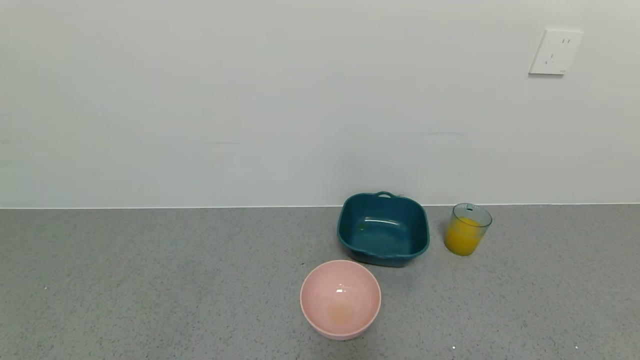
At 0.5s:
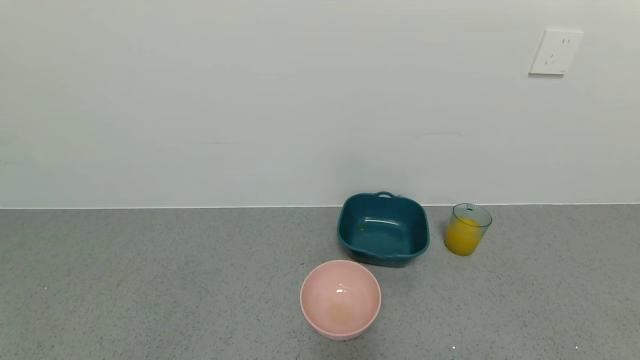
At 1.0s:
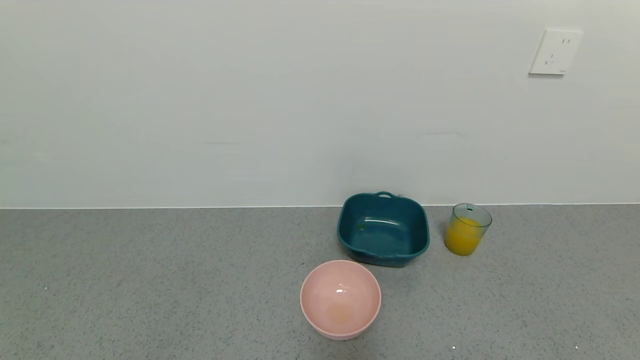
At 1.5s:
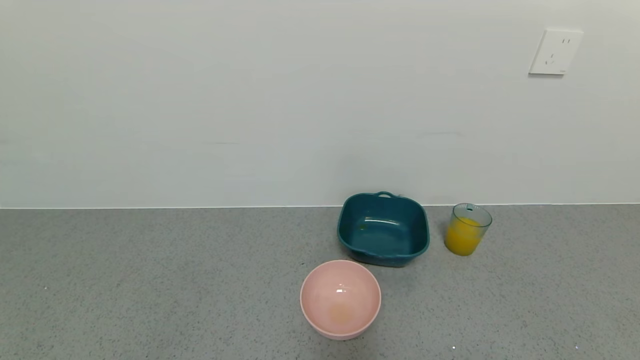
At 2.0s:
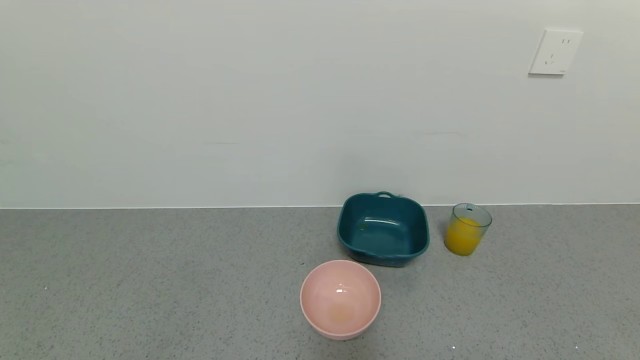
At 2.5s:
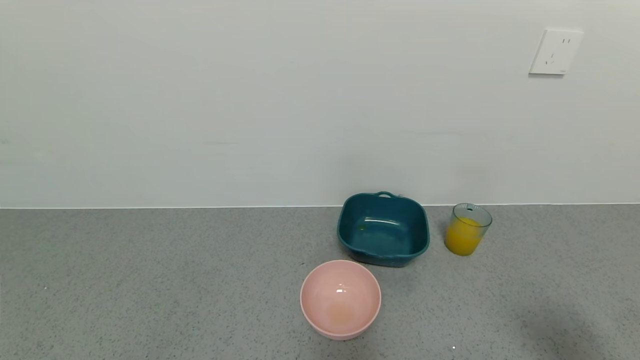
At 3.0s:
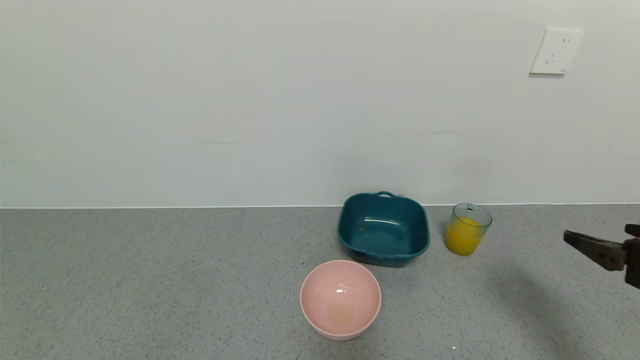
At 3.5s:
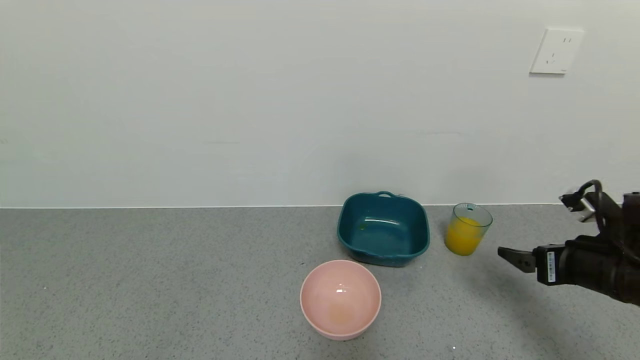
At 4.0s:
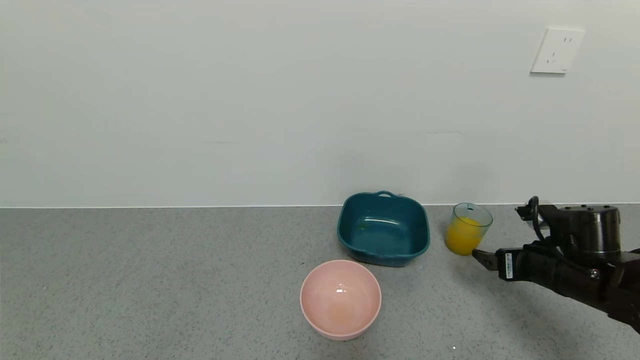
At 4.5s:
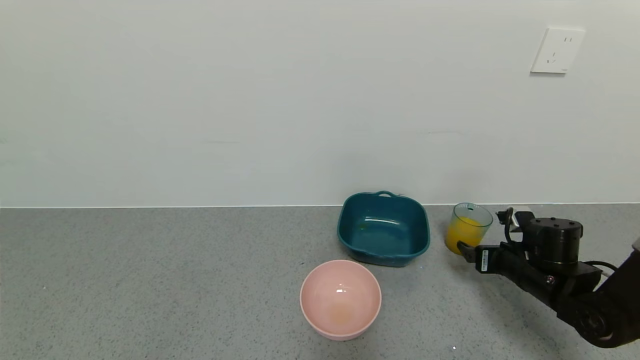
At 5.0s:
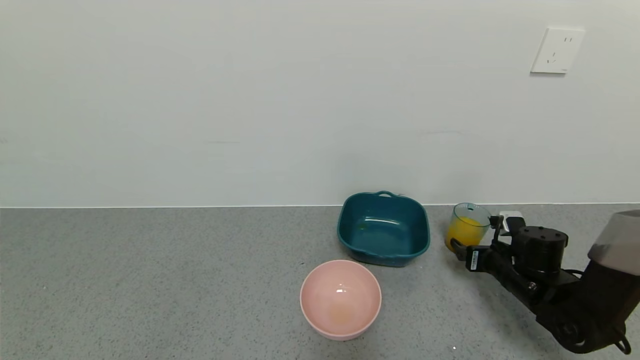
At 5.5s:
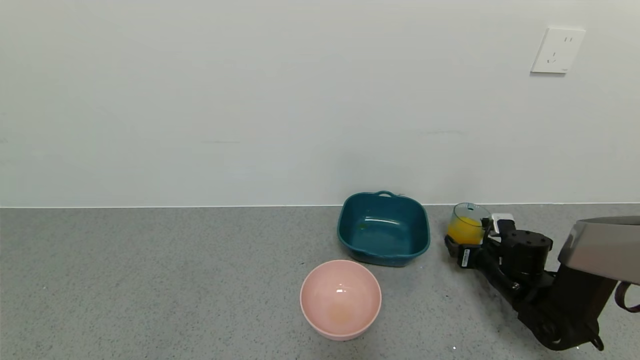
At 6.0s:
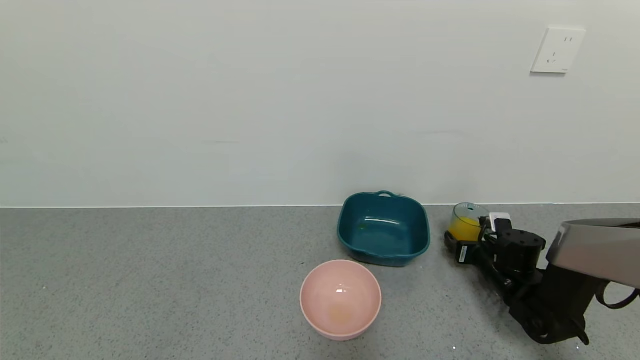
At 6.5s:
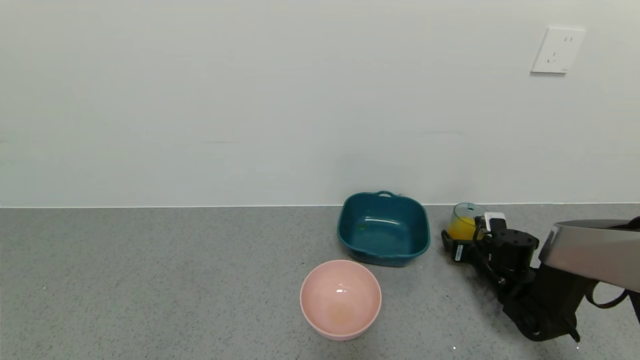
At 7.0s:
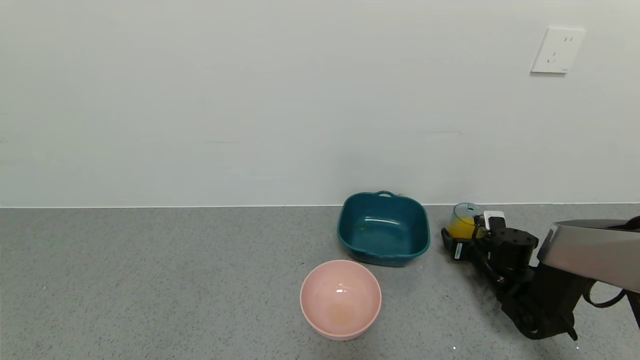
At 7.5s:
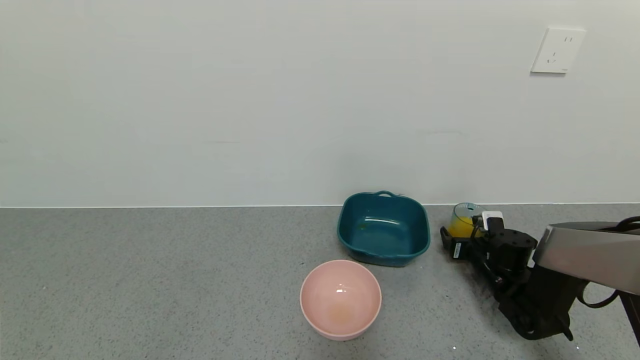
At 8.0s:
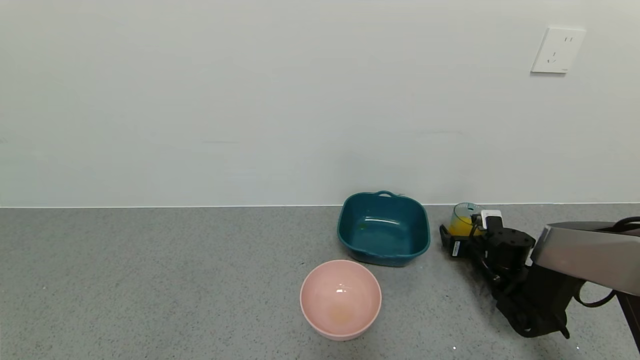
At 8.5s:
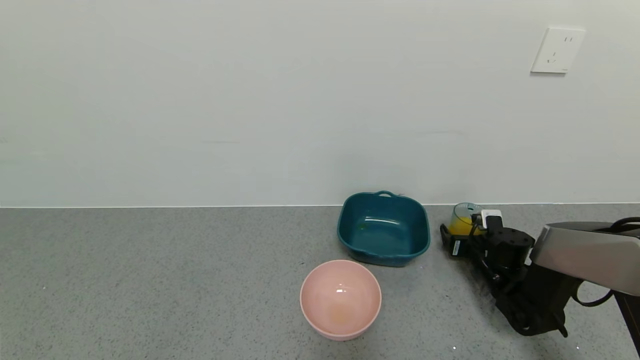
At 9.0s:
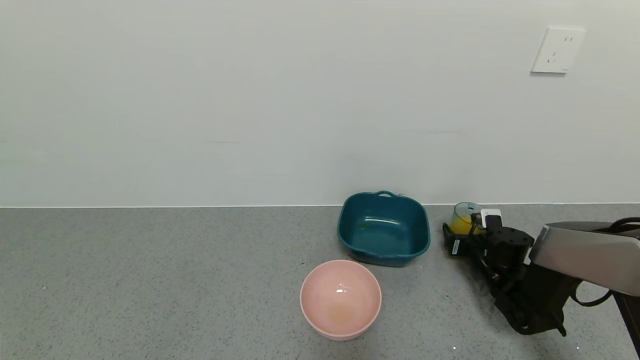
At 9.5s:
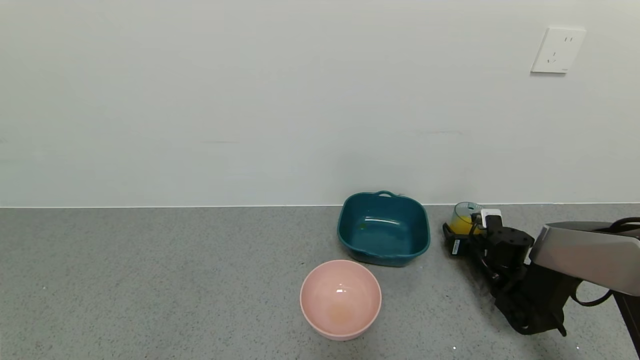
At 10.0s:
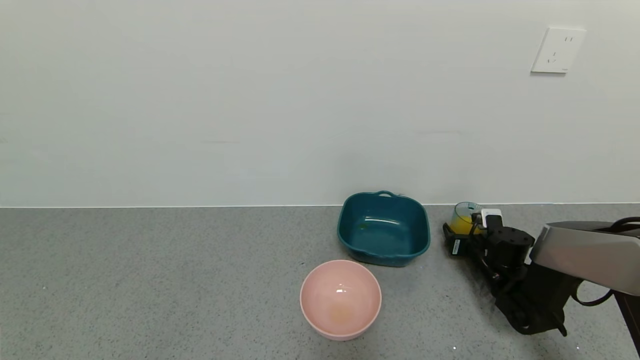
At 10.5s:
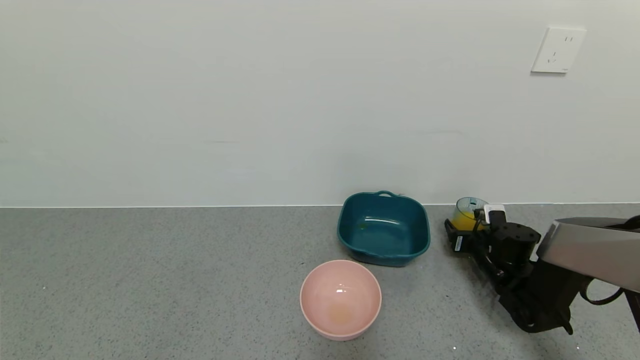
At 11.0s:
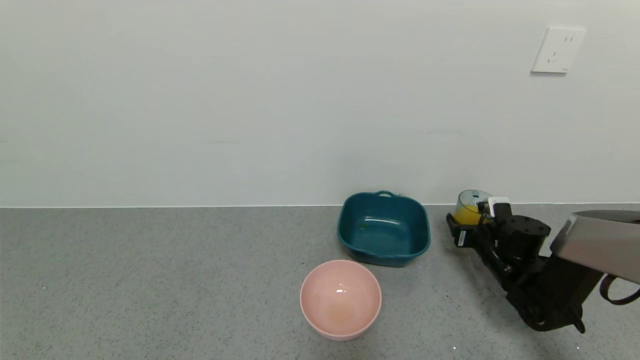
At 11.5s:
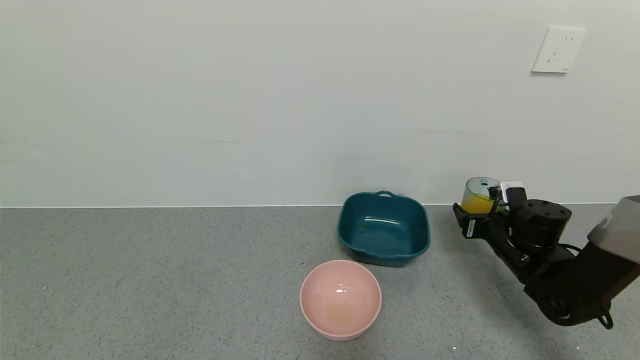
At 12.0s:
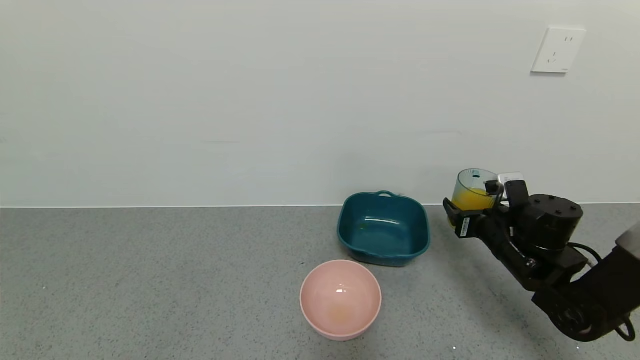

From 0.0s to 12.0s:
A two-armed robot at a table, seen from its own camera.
Task of the whole recording: use a gripper to pick up the cup and pour the liquid into a bowl or tray.
Step, from 0.0s to 10.0s: Grasp the glass of orange juice with the right gripper.
From 2.0s to 4.0s: The right gripper travels forward by approximately 30 cm.
From 4.0s to 6.0s: The right gripper is displaced downward and forward by about 15 cm.
From 6.0s to 8.0s: The grippers make only small movements.
From 8.0s to 10.0s: The right gripper closes.
From 10.0s to 12.0s: The right gripper shifts some 15 cm upward and backward.

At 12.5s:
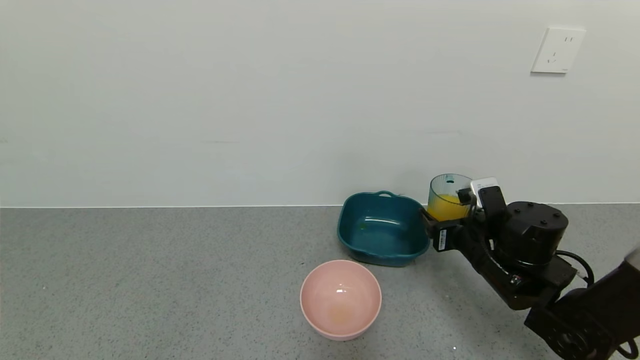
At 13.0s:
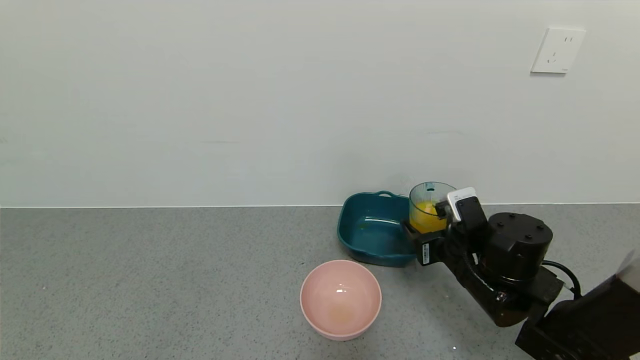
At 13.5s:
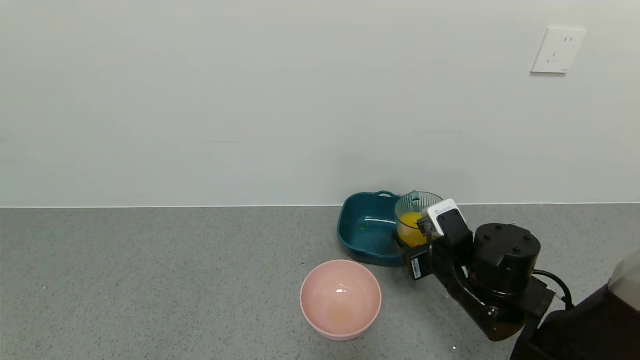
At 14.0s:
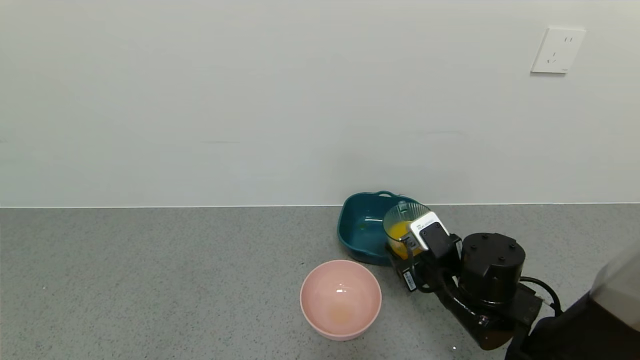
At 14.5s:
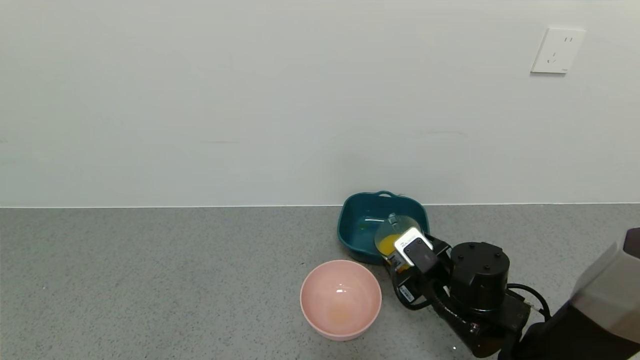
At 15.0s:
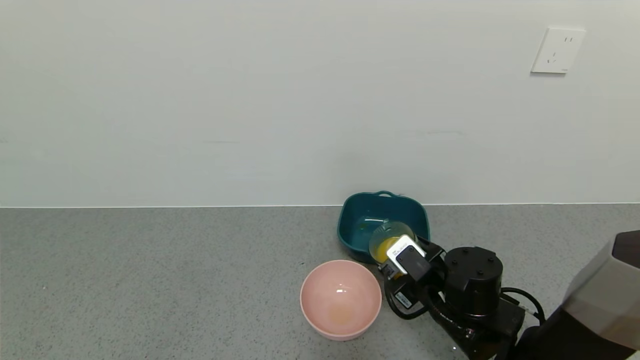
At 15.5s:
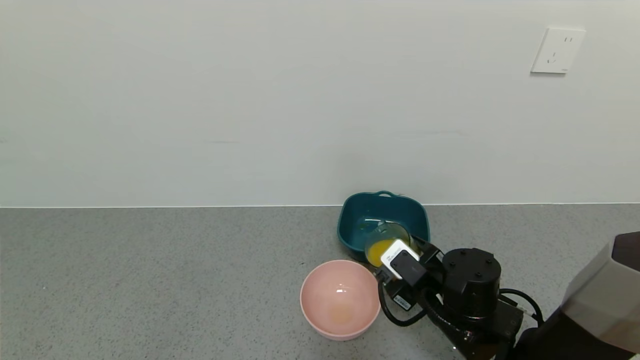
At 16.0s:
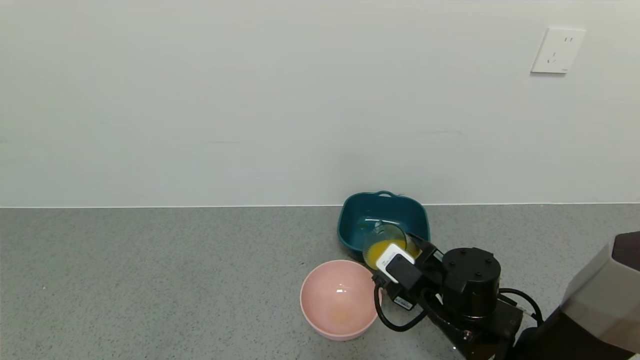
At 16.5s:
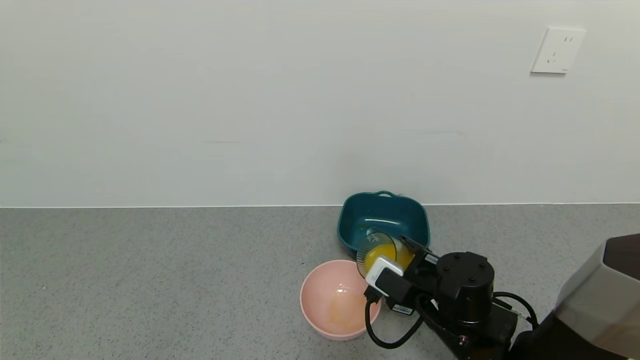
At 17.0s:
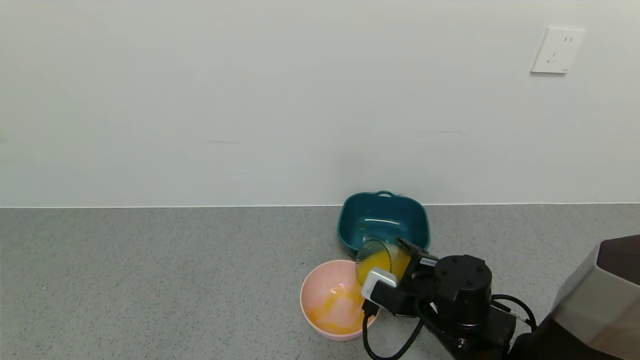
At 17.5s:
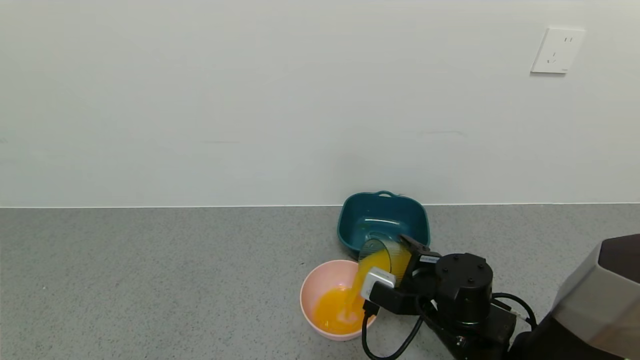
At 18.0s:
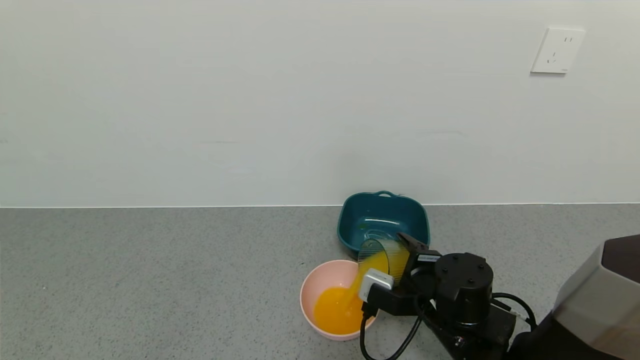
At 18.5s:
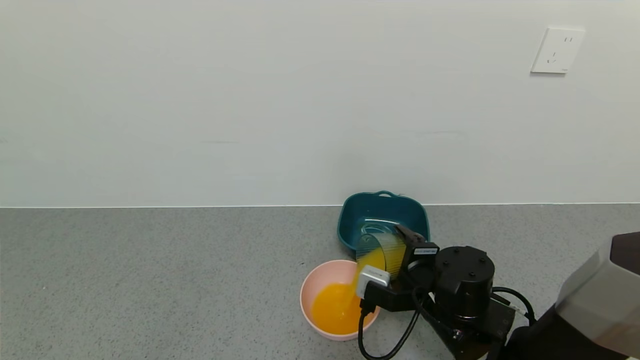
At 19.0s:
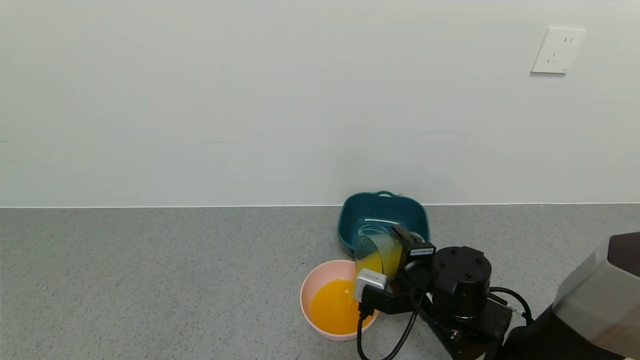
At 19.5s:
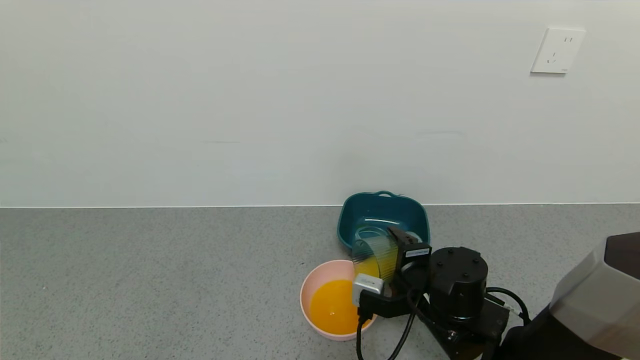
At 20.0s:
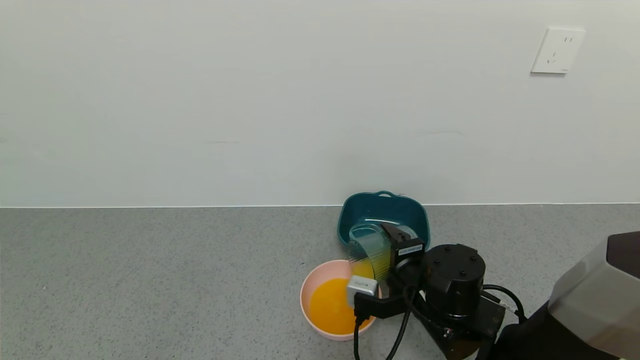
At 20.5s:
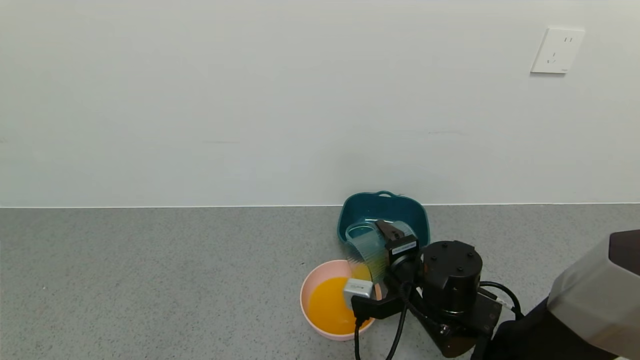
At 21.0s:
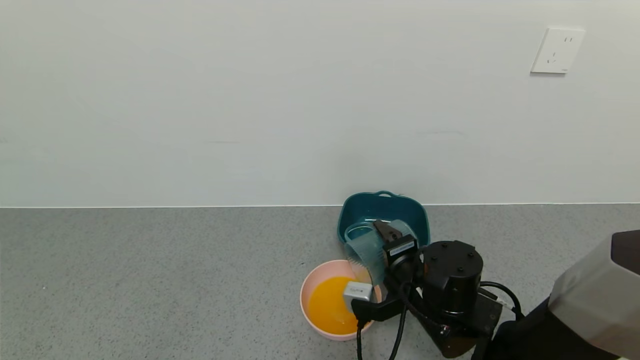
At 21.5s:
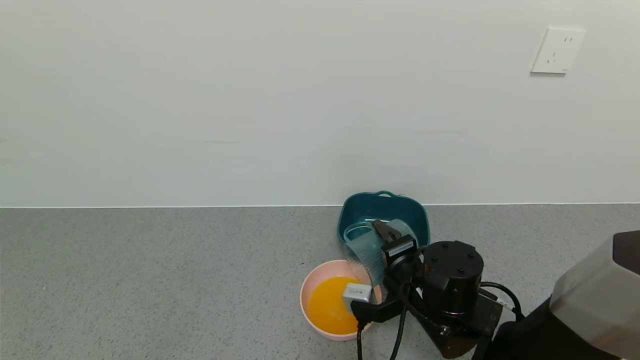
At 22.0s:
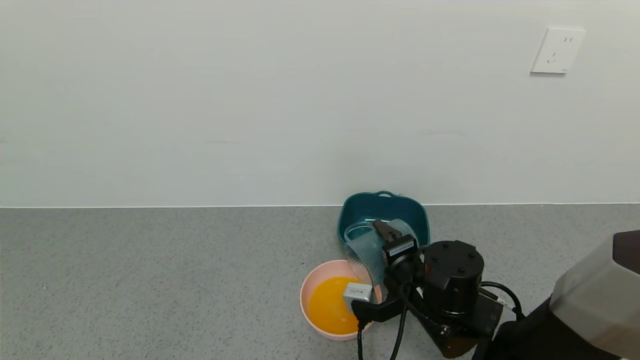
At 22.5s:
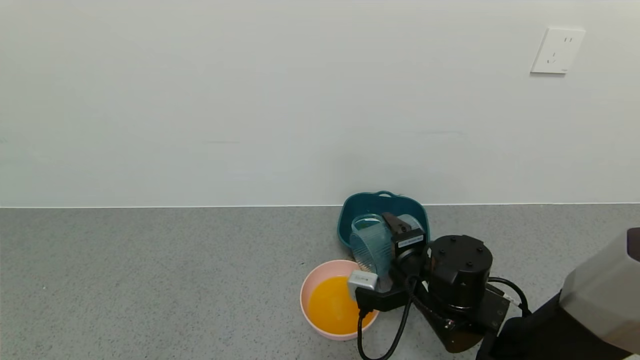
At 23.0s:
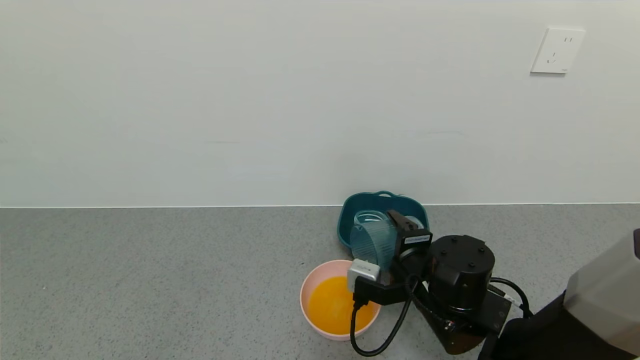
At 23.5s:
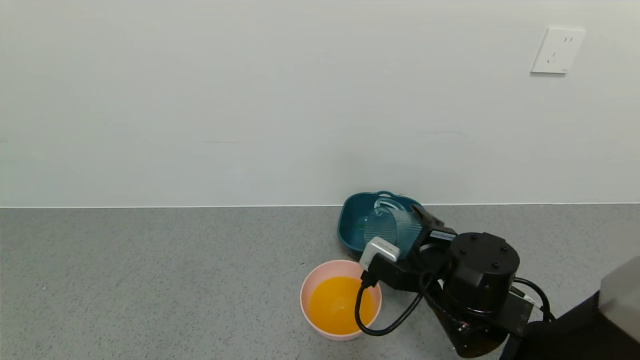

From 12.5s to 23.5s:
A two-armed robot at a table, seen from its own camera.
Task of the whole recording: use a gripper to pick up the cup and pour the liquid into a bowl or tray.
Step, from 12.5s to 22.0s: Pour the orange juice into the pink bowl with the right gripper.
From 12.5s to 14.5s: The right gripper is displaced to the left by approximately 5 cm.
From 14.5s to 16.0s: The grippers make only small movements.
From 18.0s to 20.0s: There are only small adjustments of the grippers.
From 20.0s to 21.5s: The grippers make only small movements.
